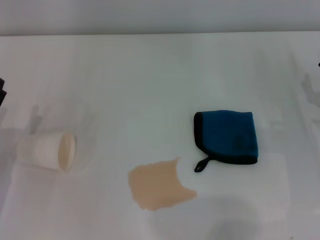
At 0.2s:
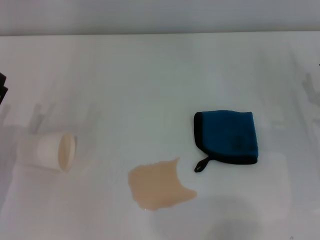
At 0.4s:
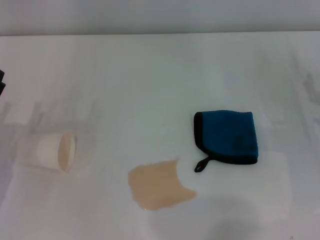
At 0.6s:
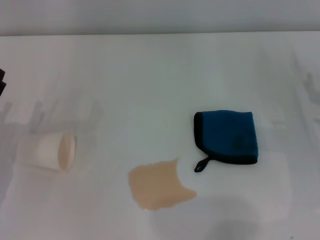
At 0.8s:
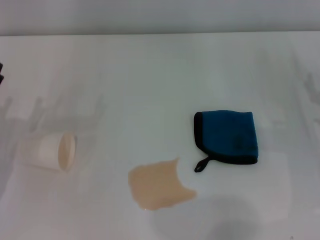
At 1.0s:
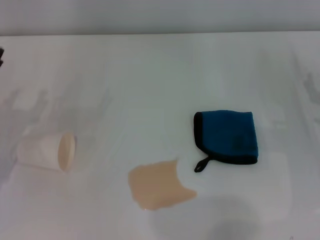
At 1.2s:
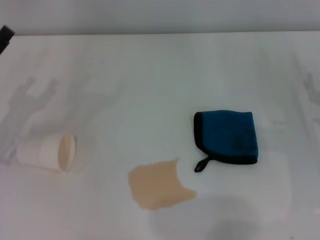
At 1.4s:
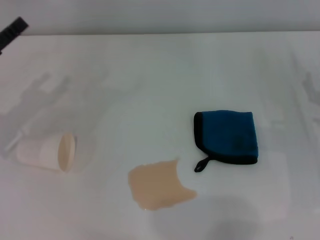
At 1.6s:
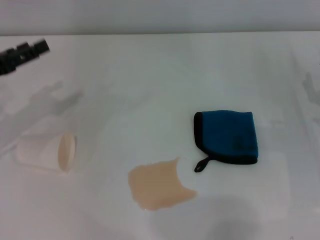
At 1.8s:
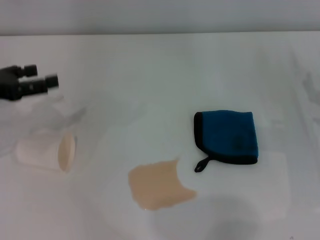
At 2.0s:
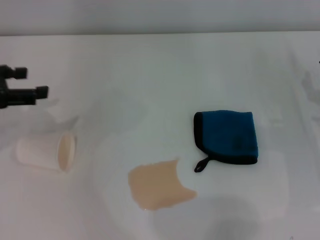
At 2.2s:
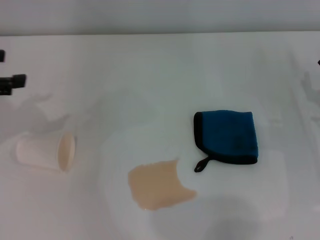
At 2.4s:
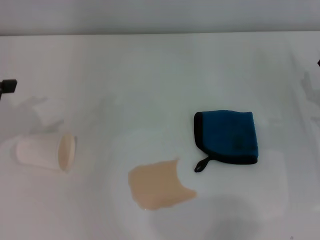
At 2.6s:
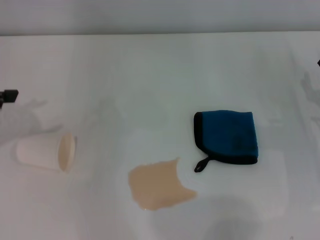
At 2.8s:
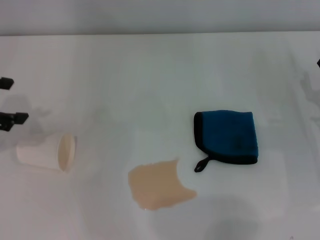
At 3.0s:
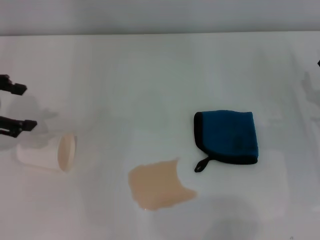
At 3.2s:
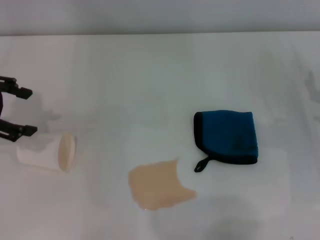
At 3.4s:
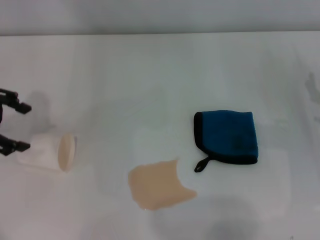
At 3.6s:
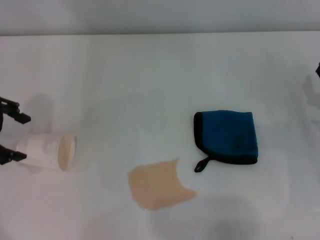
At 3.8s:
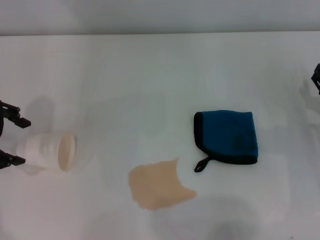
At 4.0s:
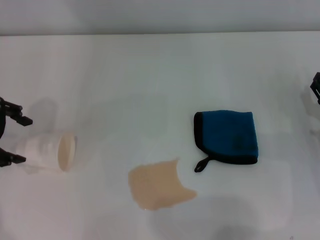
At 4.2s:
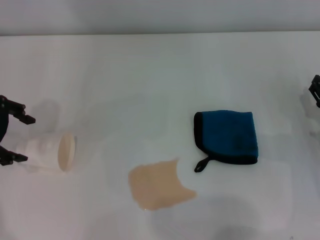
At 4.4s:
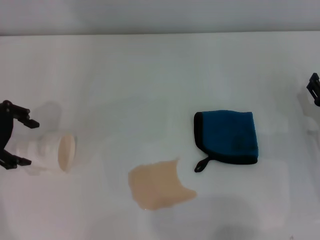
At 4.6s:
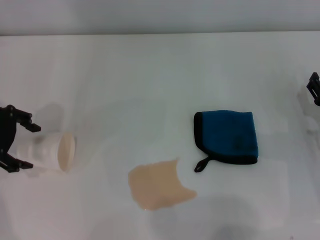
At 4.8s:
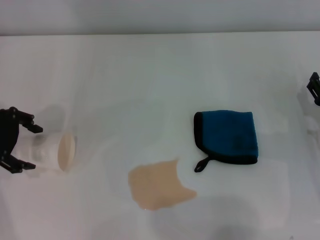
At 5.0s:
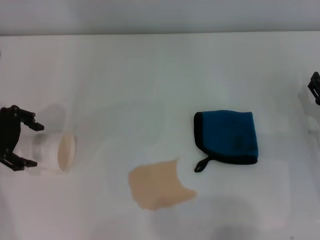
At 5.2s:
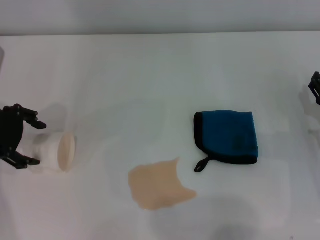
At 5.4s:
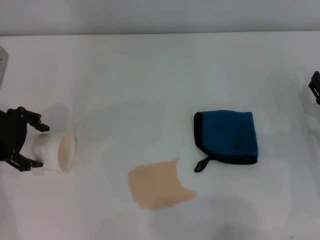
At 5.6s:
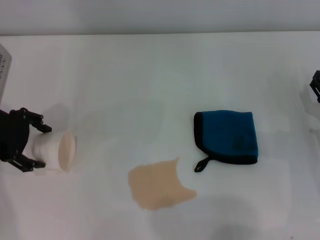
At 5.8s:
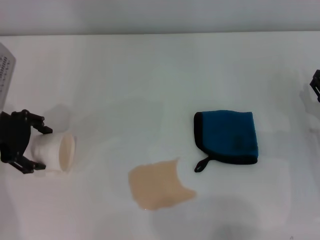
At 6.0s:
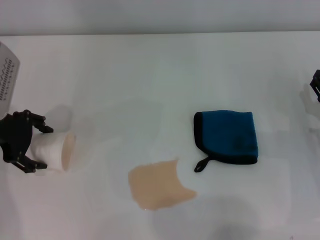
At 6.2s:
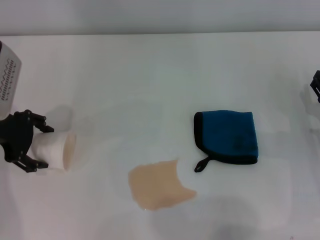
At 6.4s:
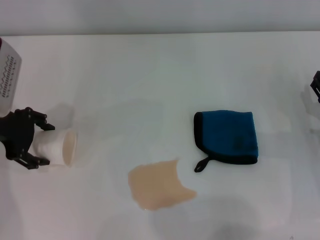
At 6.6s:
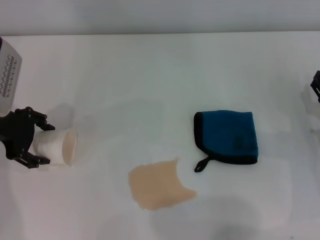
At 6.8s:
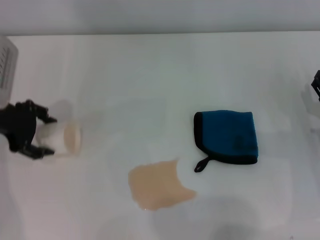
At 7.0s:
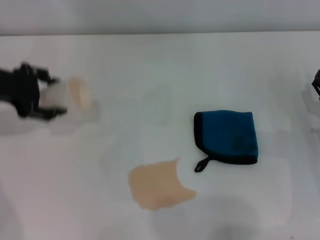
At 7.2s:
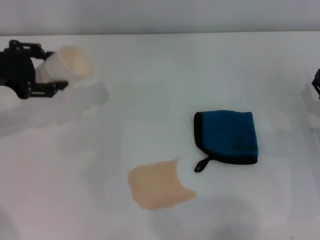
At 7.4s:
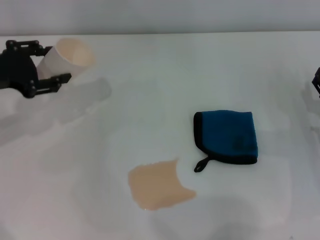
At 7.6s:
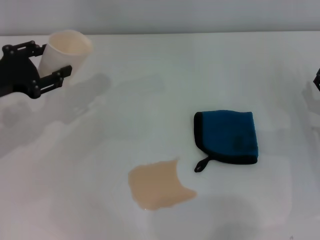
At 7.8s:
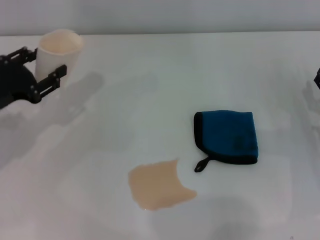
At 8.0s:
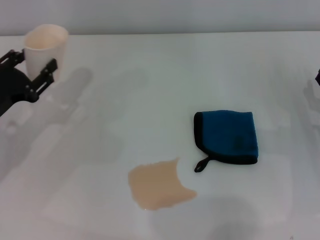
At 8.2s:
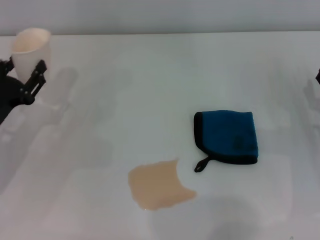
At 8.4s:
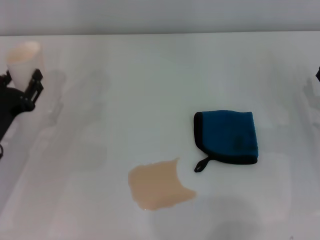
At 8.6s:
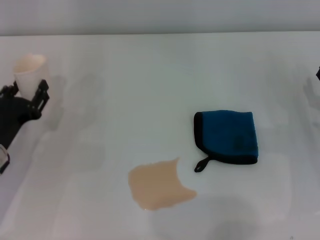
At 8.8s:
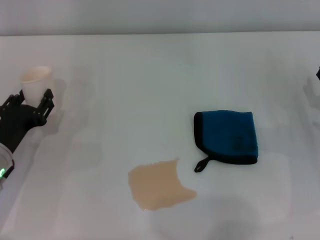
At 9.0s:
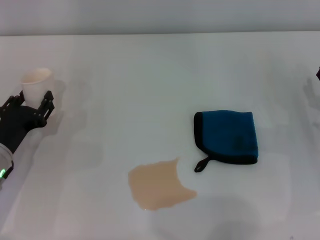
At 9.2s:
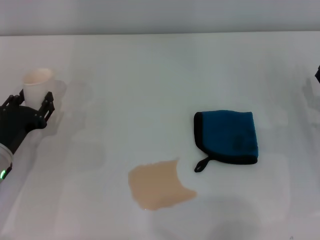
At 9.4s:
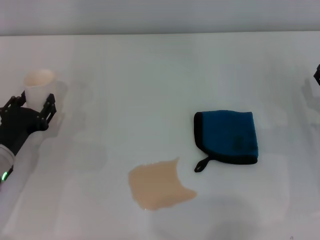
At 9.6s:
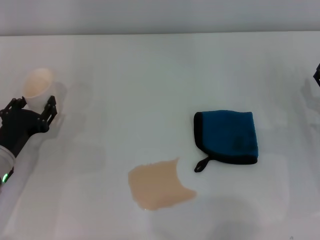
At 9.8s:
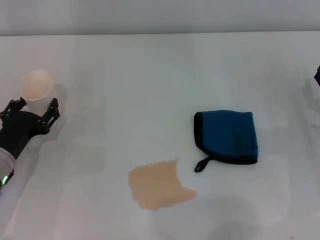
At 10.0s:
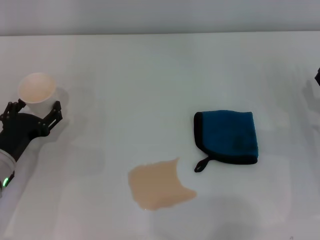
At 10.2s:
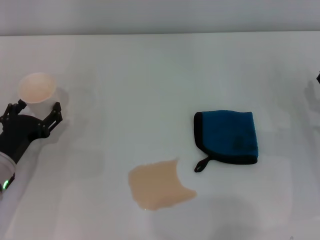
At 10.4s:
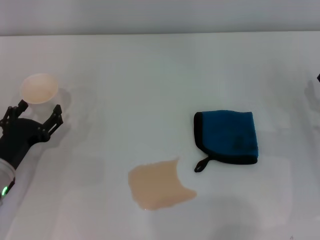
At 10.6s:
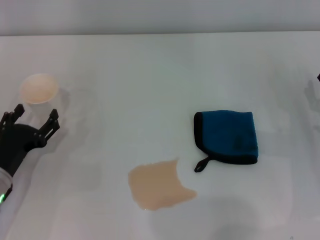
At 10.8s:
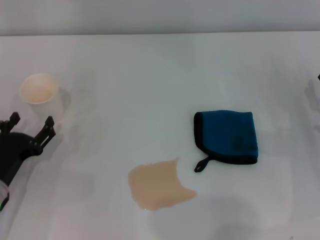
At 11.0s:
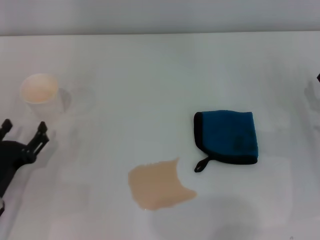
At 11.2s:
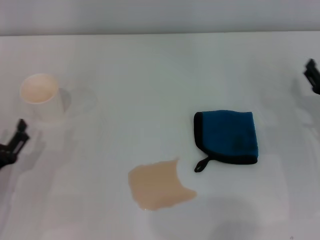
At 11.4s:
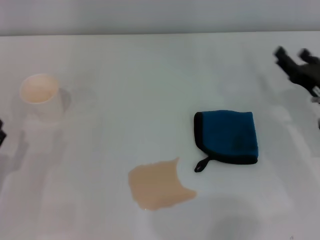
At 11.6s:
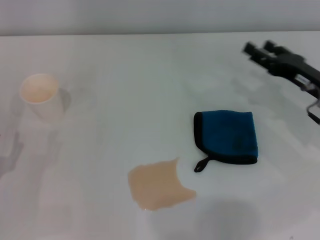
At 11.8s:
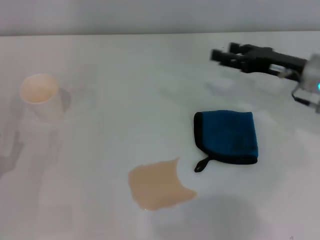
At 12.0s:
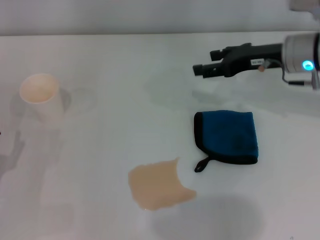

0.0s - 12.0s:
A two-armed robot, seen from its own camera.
Step, 0.0s - 6.2s: Grasp the paper cup with the left gripper.
Step, 6.4s - 10.4s: Stand the paper cup upright with the left gripper.
0.0s - 1.6s: The left gripper travels upward and forward by approximately 15 cm.
1.6s - 3.0s: The left gripper moves upward, some 10 cm.
4.4s - 6.0s: The grippers move only a little.
6.0s - 7.6s: The left gripper closes its fingers.
7.6s - 9.0s: The left gripper travels downward and backward by some 15 cm.
9.0s - 10.4s: The left gripper opens.
10.4s - 12.0s: The left gripper travels backward by some 10 cm, while the right gripper shifts roughly 20 cm upward, forward and to the left.

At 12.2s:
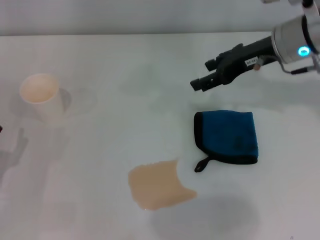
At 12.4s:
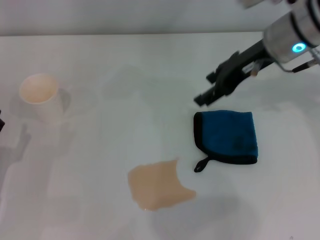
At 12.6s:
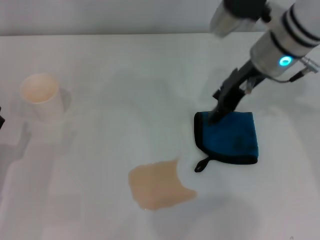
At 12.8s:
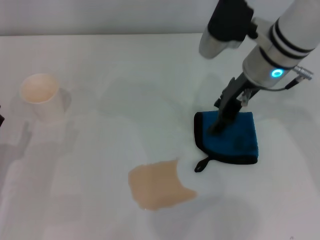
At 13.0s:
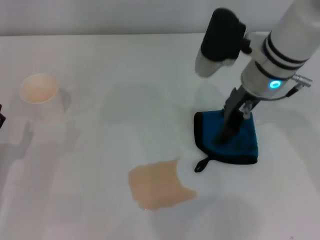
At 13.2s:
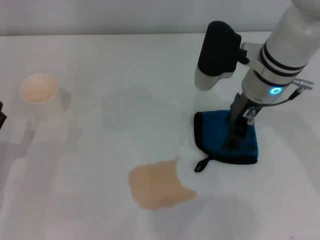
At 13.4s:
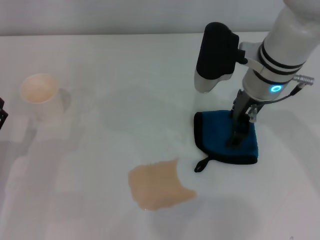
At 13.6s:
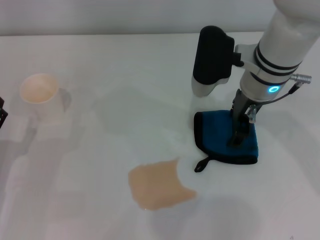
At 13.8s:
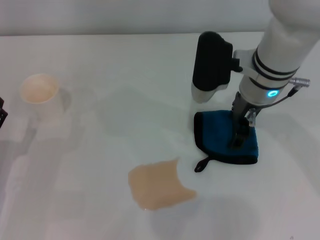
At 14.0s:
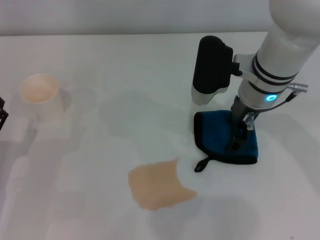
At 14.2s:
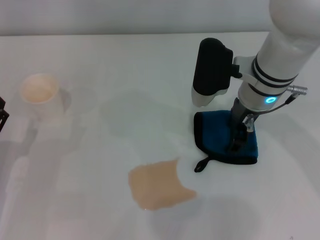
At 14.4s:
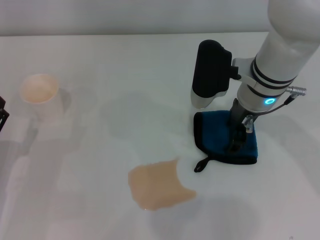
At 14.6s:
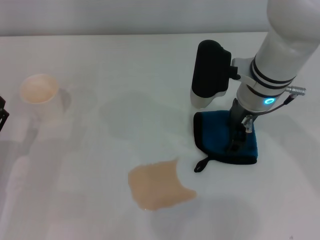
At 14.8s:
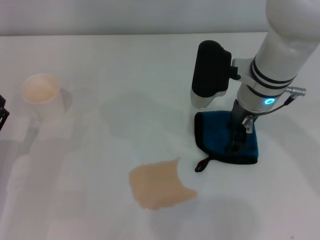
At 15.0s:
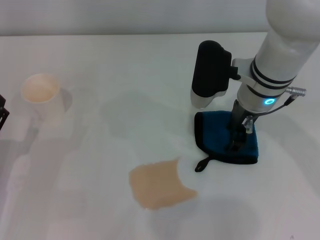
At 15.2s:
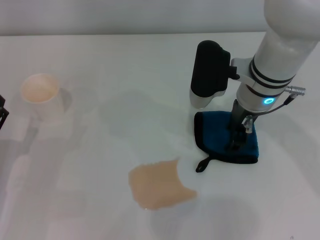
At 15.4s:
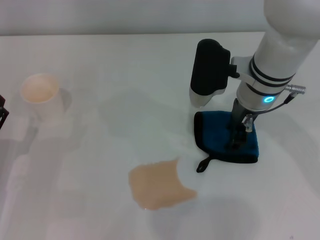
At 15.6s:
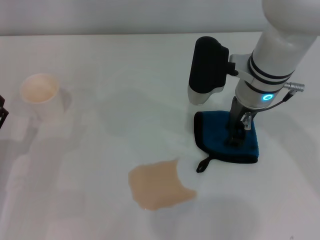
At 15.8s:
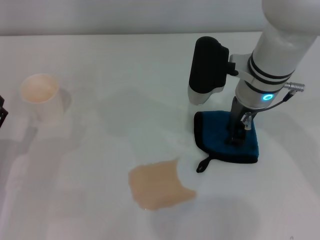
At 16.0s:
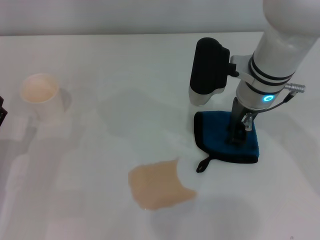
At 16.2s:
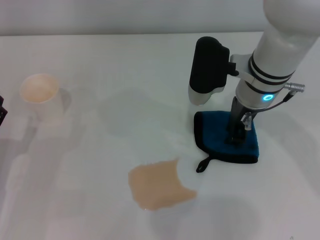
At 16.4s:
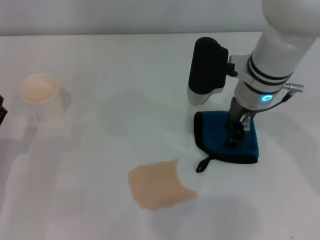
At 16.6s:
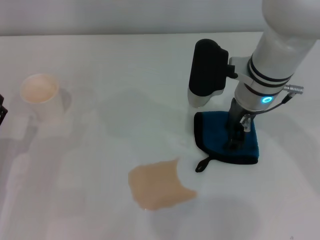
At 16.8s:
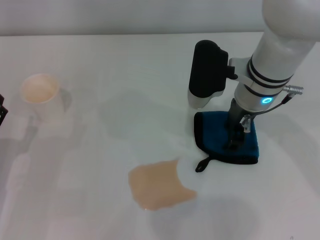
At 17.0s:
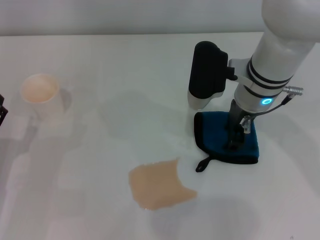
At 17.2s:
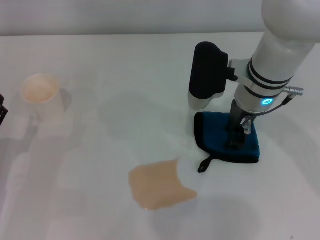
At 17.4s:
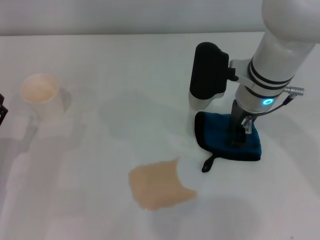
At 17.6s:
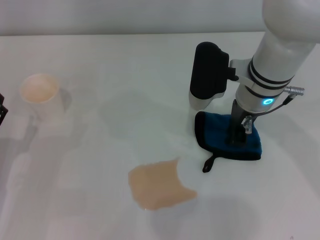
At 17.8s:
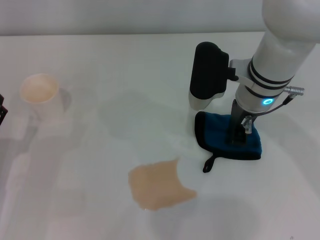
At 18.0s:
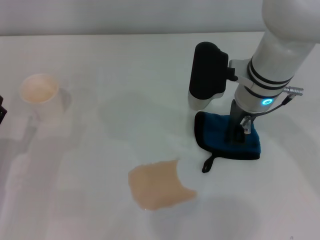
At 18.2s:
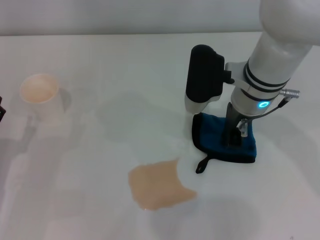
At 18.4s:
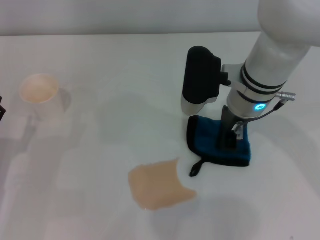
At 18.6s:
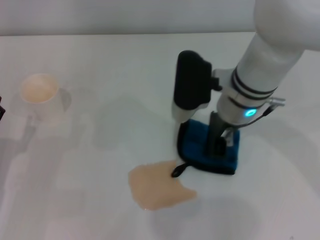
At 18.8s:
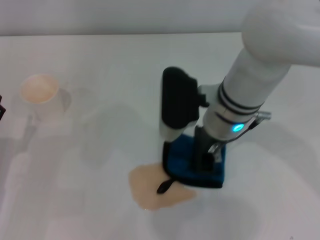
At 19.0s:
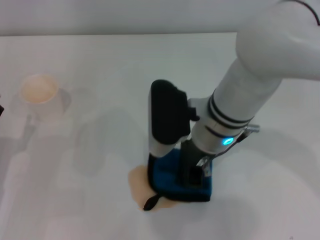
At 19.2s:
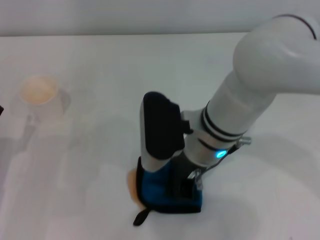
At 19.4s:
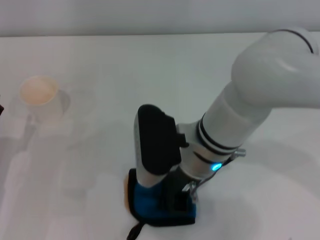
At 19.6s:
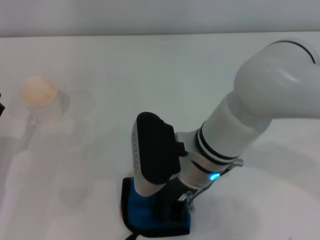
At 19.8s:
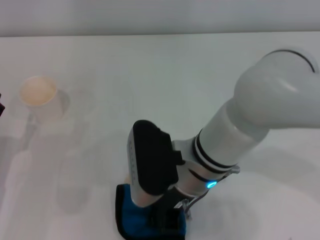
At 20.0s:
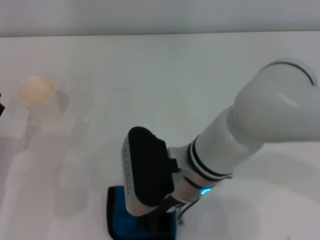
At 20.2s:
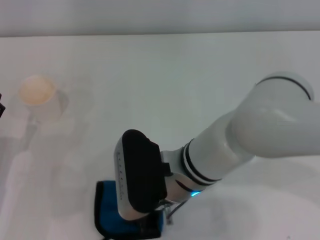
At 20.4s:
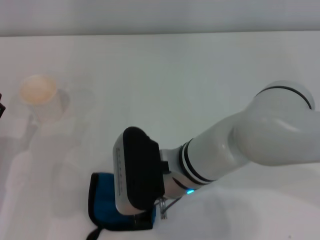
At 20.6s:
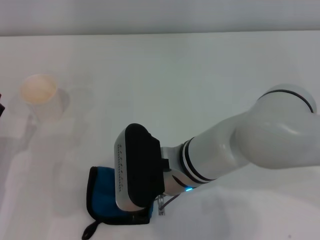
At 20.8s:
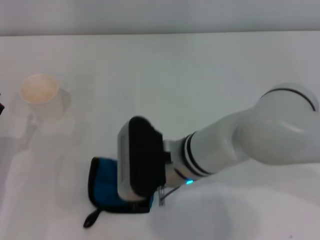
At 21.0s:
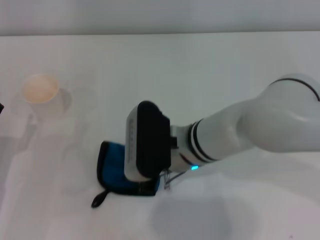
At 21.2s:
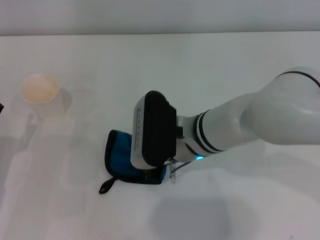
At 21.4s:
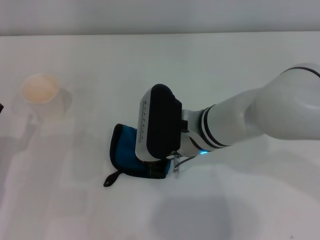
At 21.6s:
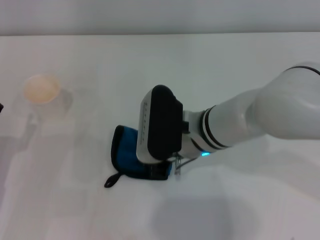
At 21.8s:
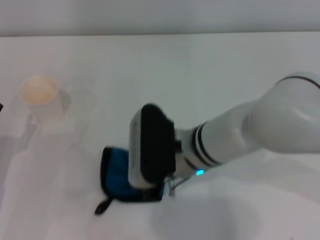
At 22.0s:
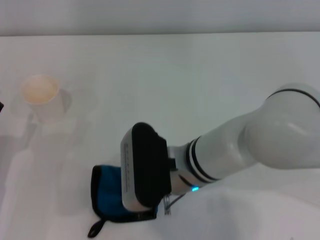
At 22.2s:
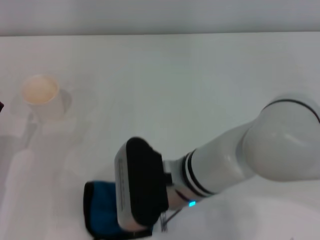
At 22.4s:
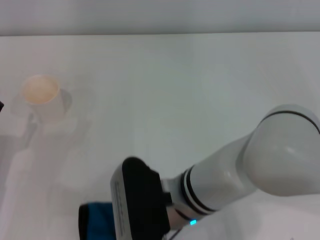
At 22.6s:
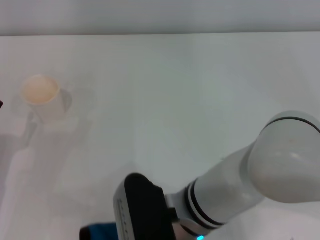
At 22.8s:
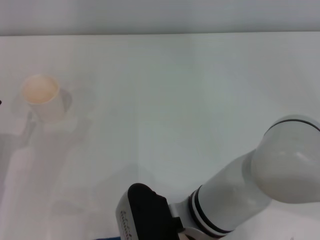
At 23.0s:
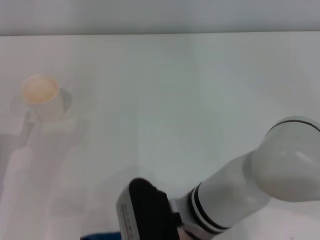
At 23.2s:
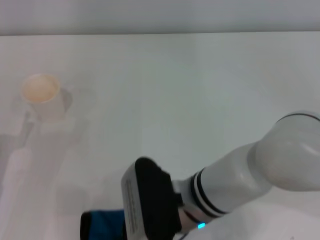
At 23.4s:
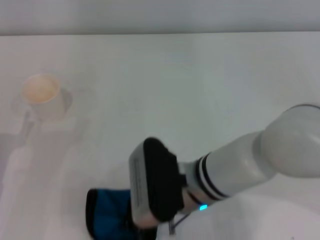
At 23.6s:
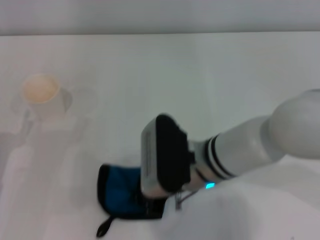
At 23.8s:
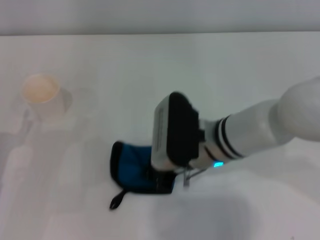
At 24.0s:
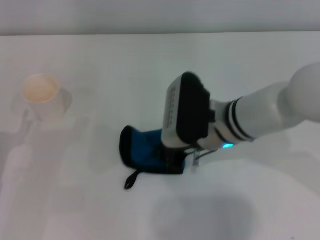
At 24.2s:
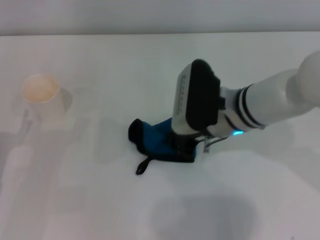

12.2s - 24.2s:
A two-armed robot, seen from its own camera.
Step, 12.2s - 17.4s: Grasp the rag with the right gripper.
12.2s - 13.8s: The right gripper goes roughly 5 cm to the left.
13.8s - 15.2s: The grippers make only small movements.
15.2s - 16.6s: Both grippers stay put.
16.6s - 18.2s: The right gripper closes its fingers.
18.2s - 19.8s: The right gripper moves backward and to the left, roughly 15 cm.
21.2s - 22.6s: The right gripper heads backward, covering approximately 10 cm.
22.6s - 24.2s: The right gripper shifts about 15 cm forward and to the right.
